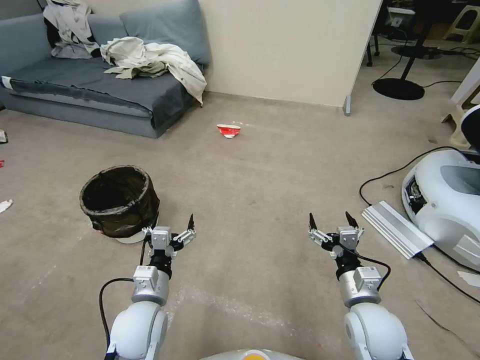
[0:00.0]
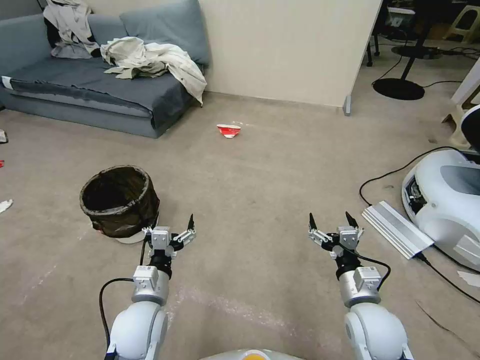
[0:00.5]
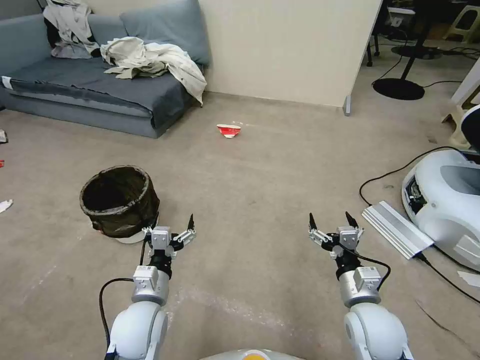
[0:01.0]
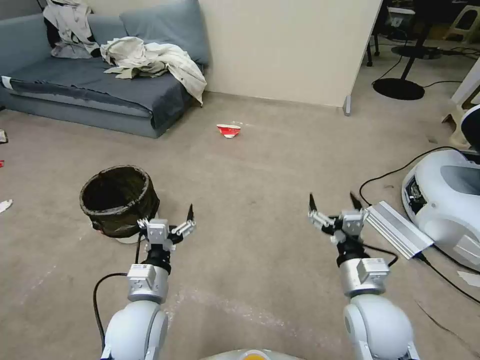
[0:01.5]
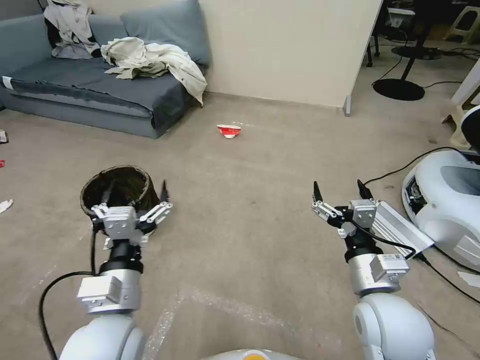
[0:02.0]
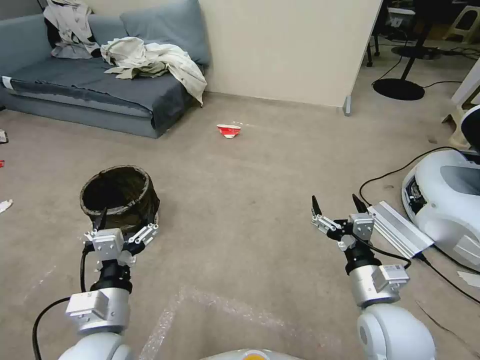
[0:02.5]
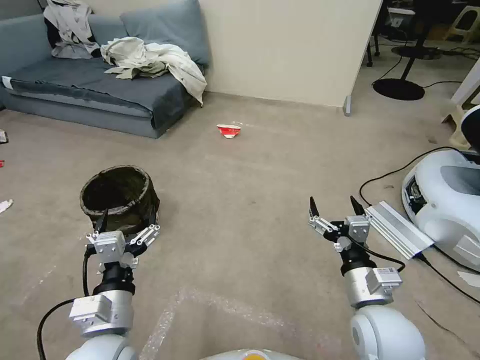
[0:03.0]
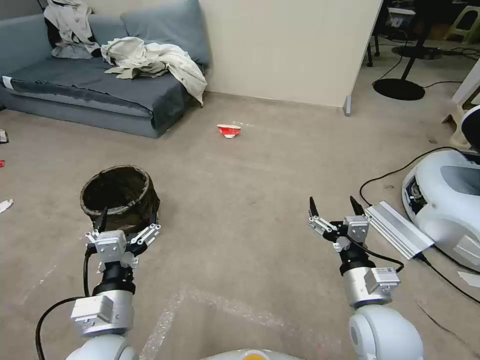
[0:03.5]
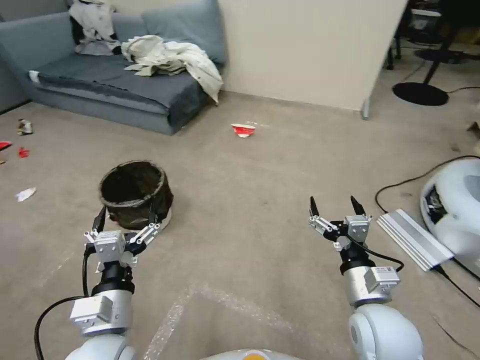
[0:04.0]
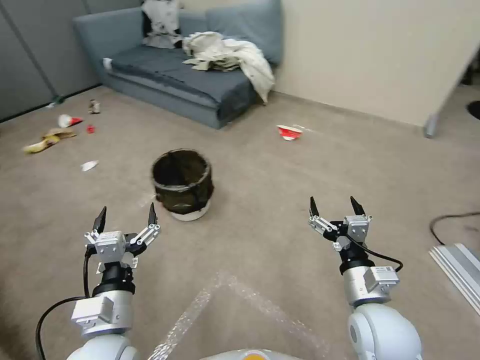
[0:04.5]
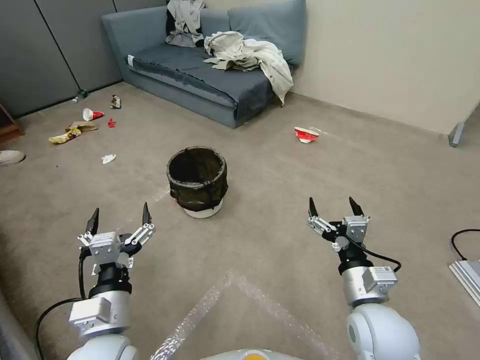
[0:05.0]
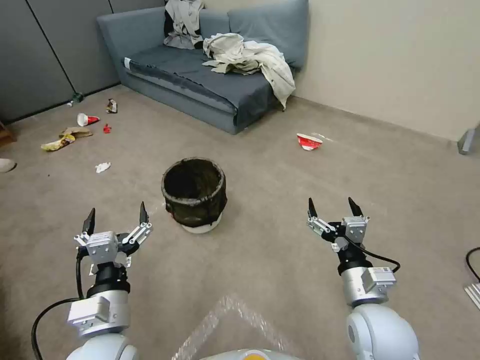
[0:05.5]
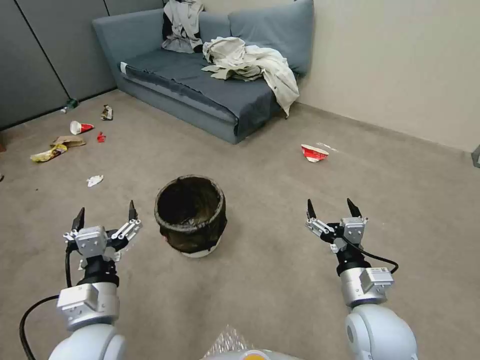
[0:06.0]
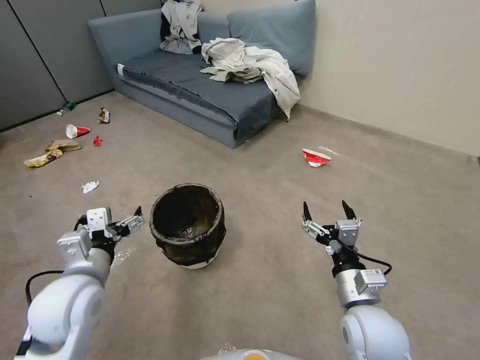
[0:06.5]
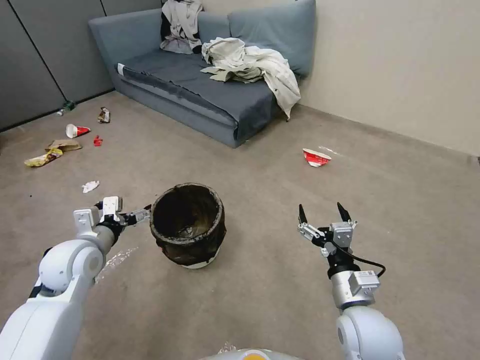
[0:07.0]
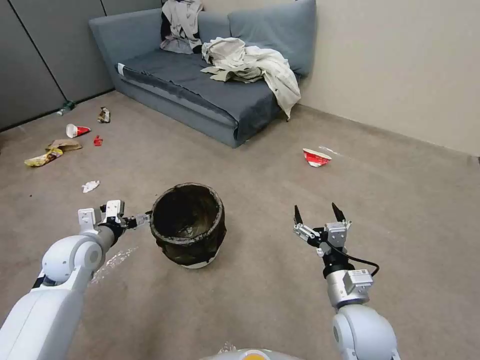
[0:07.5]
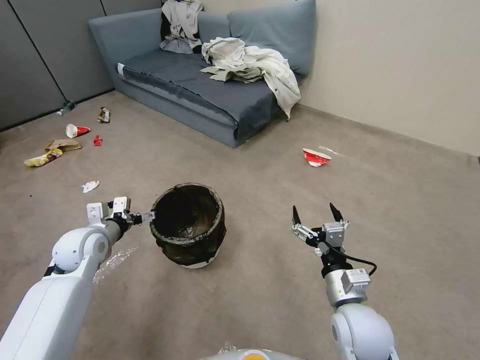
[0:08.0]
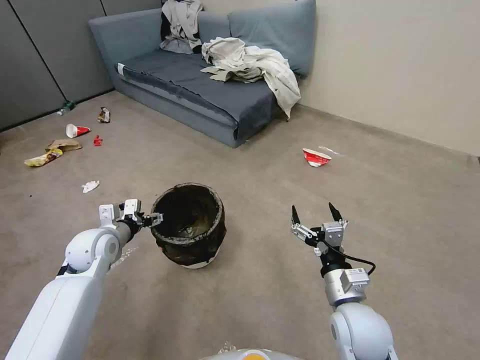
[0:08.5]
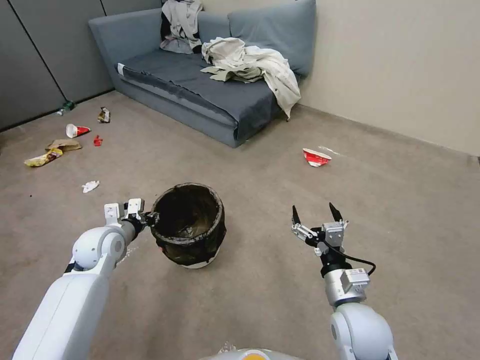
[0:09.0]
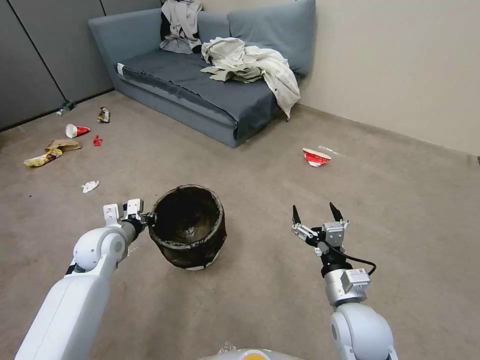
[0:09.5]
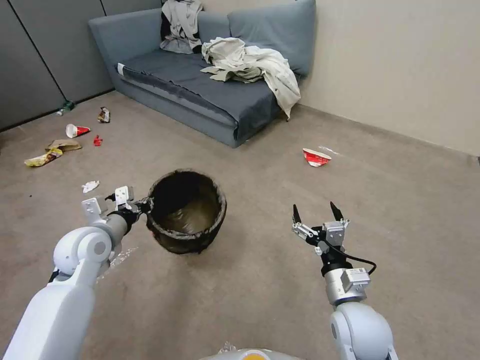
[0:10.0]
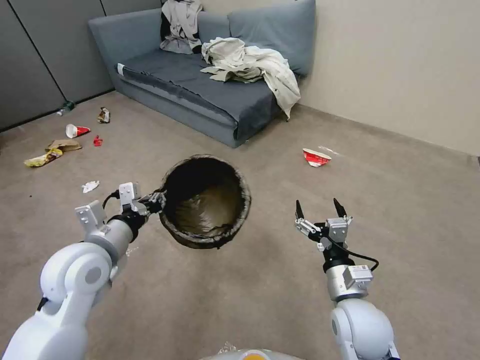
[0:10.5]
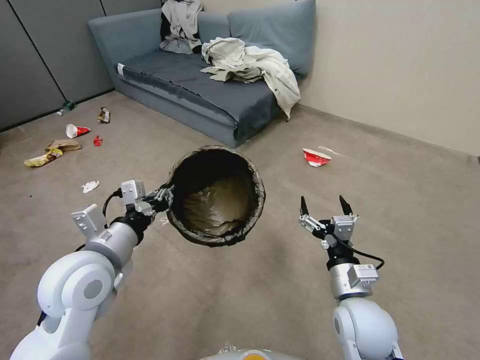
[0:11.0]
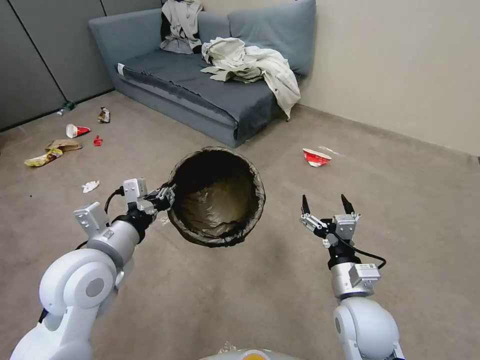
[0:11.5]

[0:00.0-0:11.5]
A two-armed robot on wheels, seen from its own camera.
Task of the whole recording: Pick up the trash can from the floor.
0:02.0 to 0:04.0: The left gripper ends up about 5 cm from where it was.
0:06.0 to 0:07.5: The left gripper heads forward and to the left, covering roughly 20 cm.
0:07.5 to 0:09.5: The left gripper ends up some 5 cm from where it was, and closes up.
0:09.5 to 0:11.5: The left gripper shifts about 20 cm upward, backward and to the right.

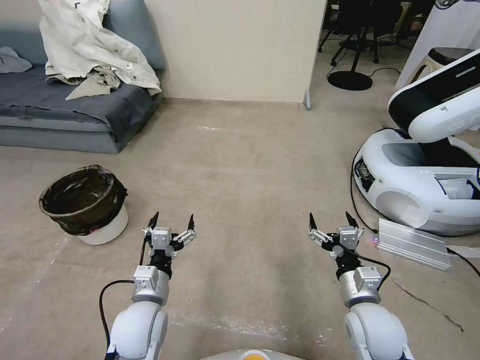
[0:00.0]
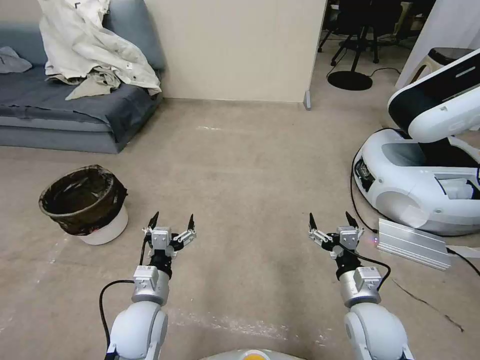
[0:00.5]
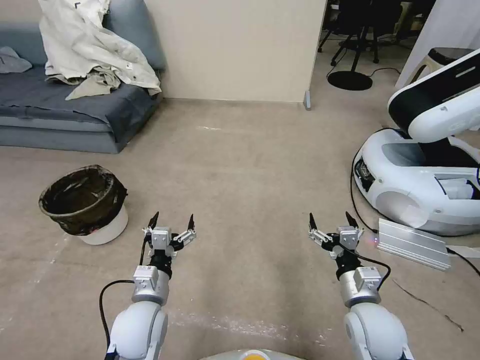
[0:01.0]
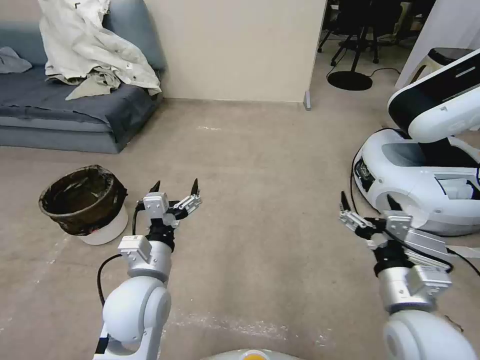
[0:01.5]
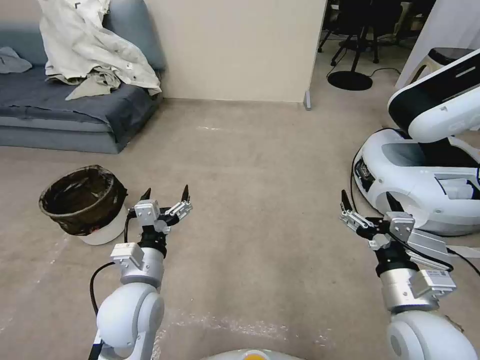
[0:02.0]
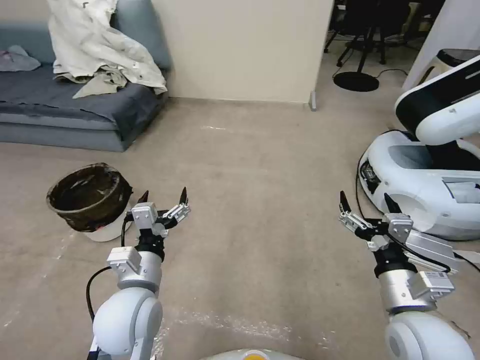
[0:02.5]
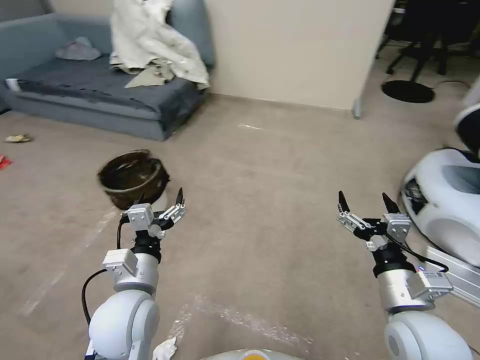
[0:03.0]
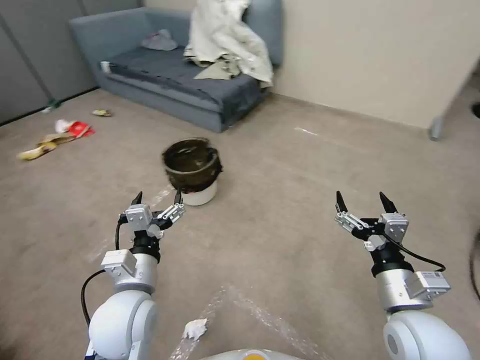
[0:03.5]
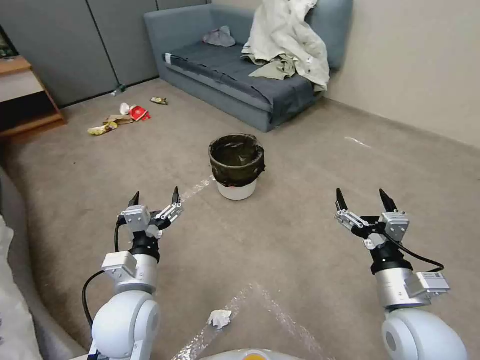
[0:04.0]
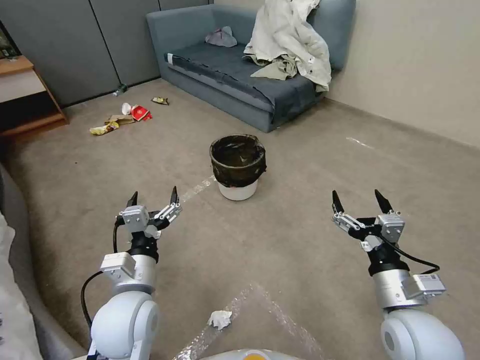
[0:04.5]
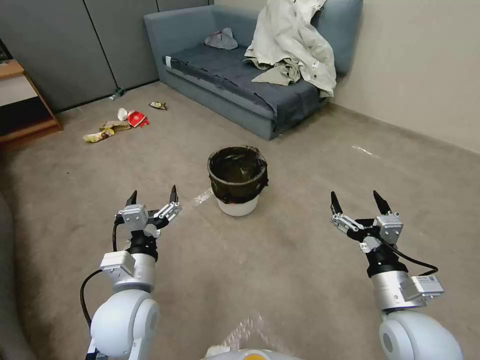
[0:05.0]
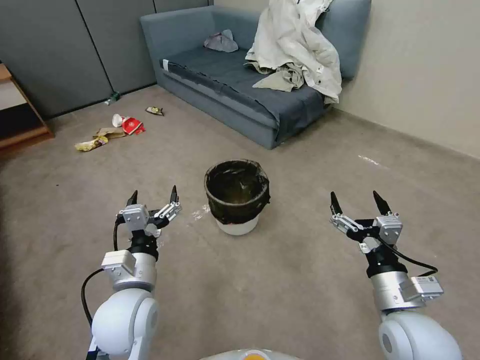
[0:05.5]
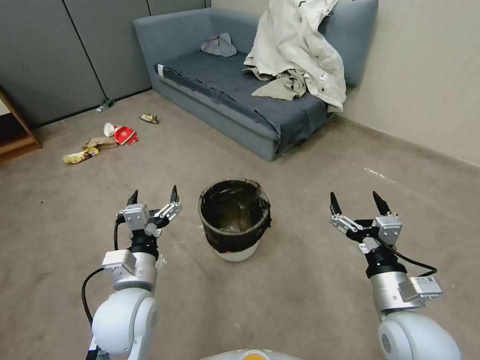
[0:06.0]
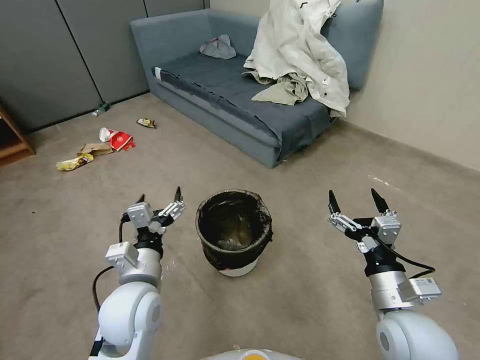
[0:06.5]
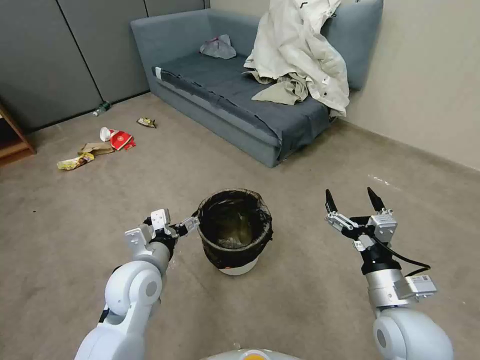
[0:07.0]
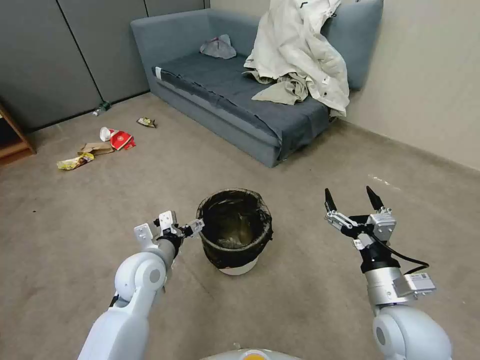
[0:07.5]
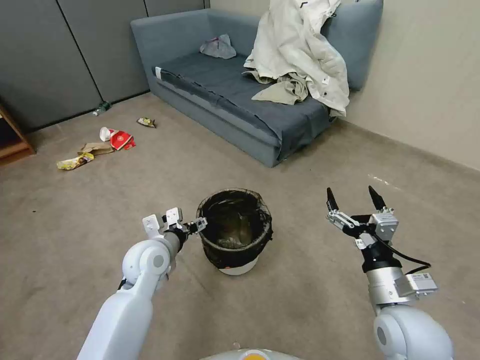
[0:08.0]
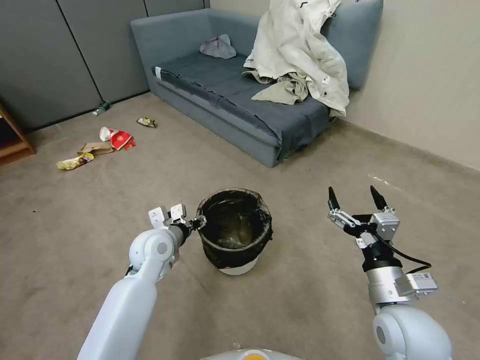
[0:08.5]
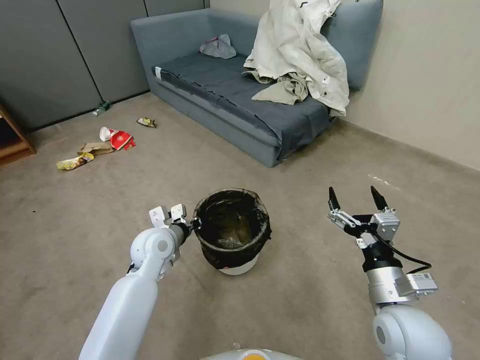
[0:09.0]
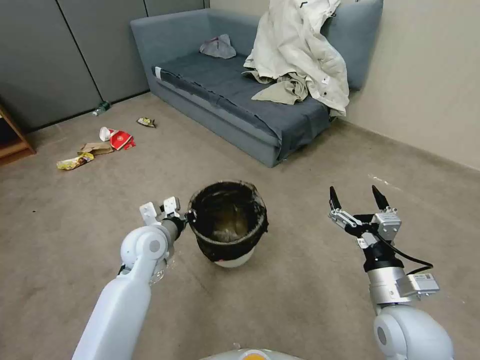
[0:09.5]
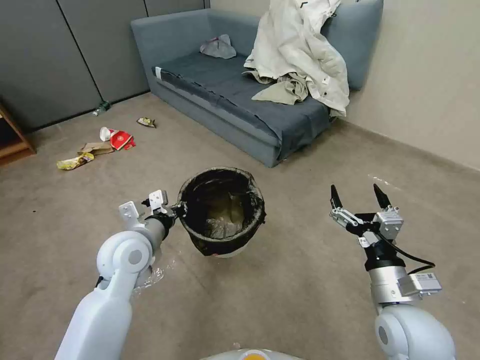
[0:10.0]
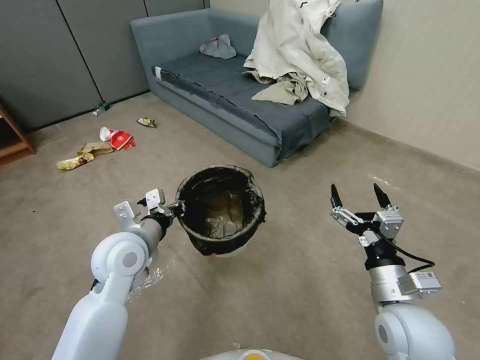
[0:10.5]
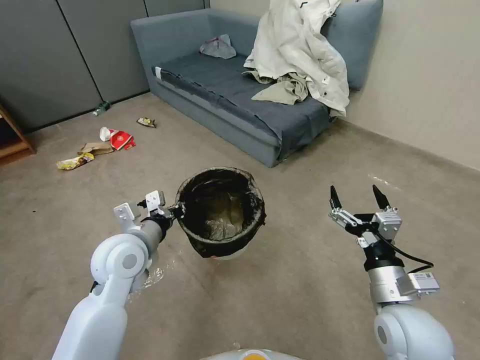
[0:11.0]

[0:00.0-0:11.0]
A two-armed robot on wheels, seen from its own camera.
Task of the whole recording: Pick up the trash can from the floor.
0:05.5 to 0:07.5: The left gripper is displaced forward by roughly 10 cm.
0:07.5 to 0:09.0: The left gripper goes some 5 cm forward, and closes.
0:09.0 to 0:11.0: The left gripper travels upward and backward by some 10 cm.
